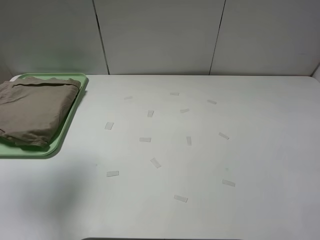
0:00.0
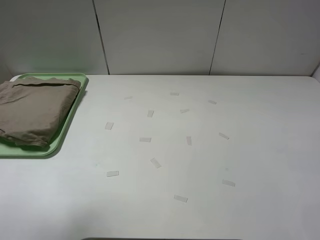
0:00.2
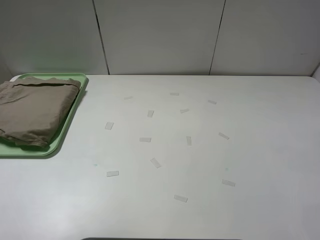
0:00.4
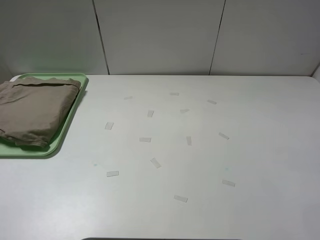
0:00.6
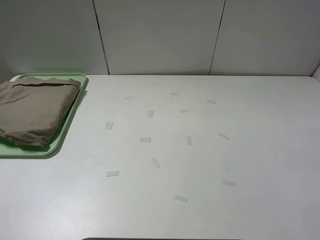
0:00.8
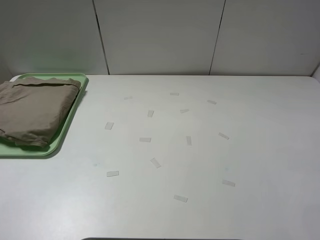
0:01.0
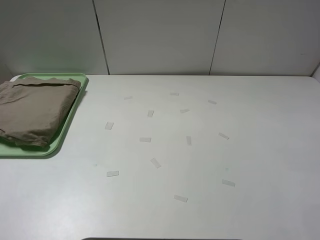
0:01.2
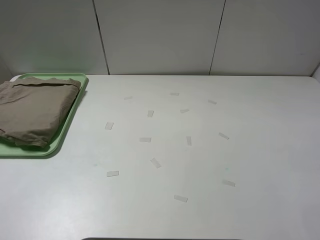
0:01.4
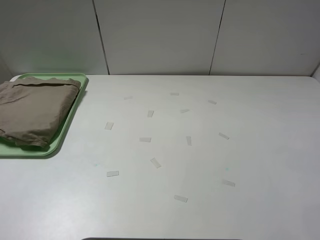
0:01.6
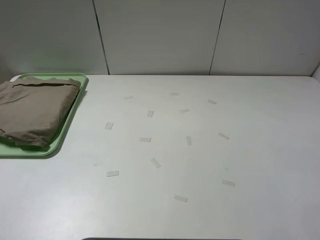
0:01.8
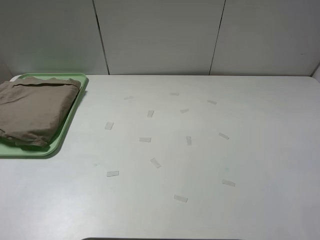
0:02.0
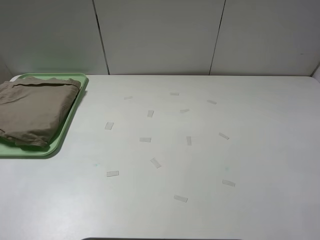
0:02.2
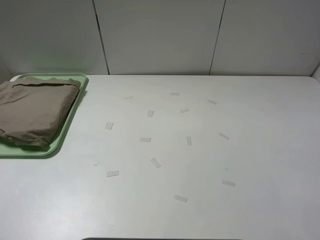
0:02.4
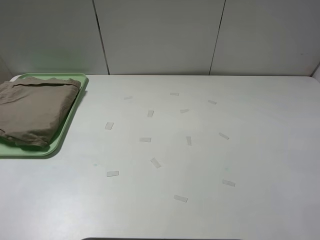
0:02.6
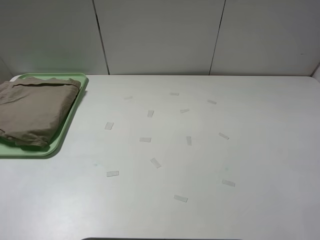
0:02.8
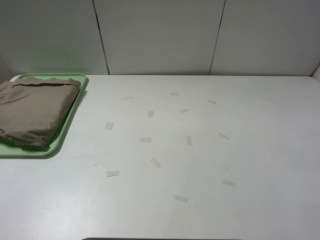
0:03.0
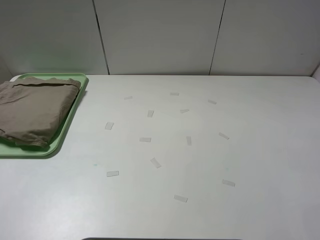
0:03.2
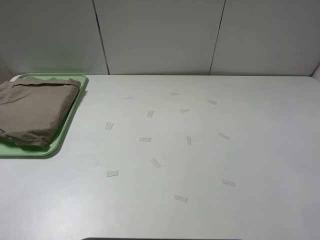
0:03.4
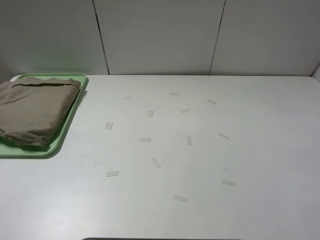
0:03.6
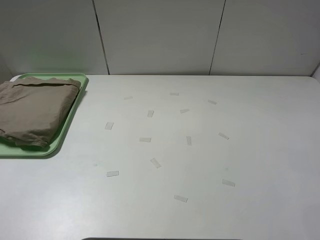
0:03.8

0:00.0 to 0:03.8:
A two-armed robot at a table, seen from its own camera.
Task of the whole recording: fold the khaki jeans in half with two grippers, then fold them in half again, and use the left claw to place the folded fold khaki jeans on the tray.
0:00.0 to 0:01.2: The left gripper heads backward, covering roughly 25 cm.
0:02.6 to 0:03.8: The two grippers keep their place.
